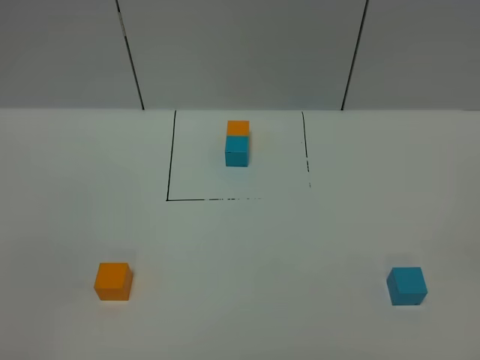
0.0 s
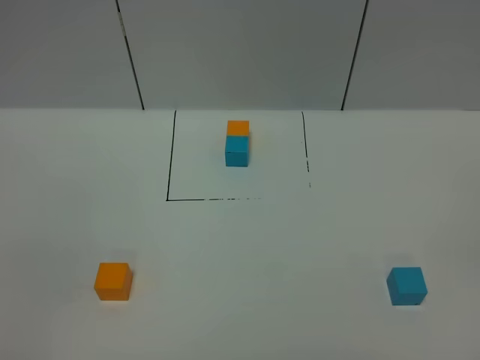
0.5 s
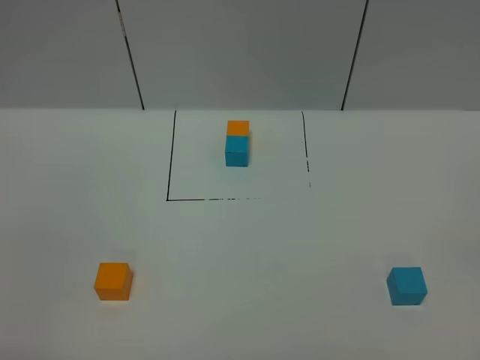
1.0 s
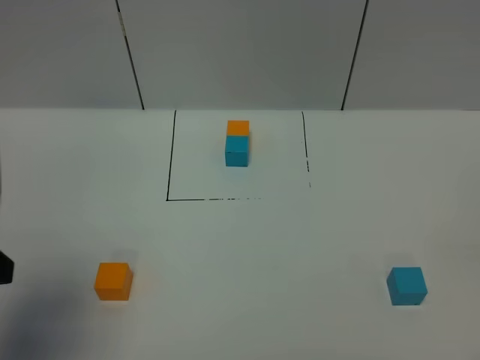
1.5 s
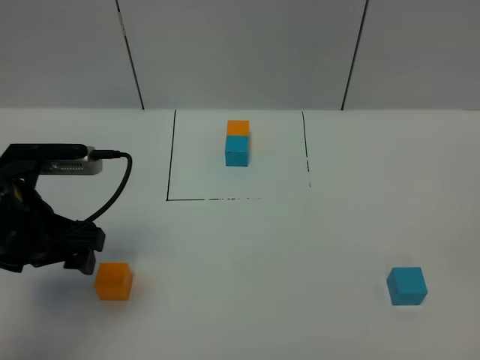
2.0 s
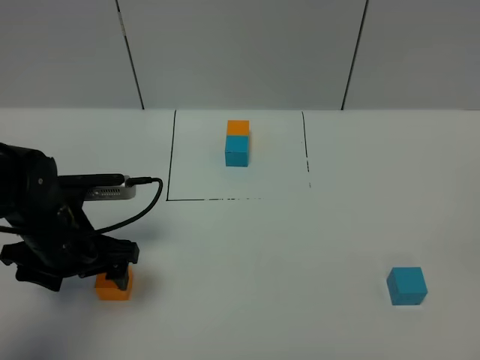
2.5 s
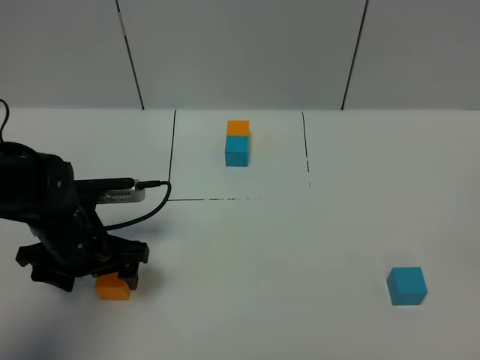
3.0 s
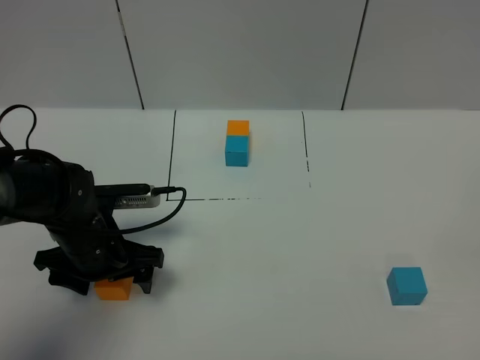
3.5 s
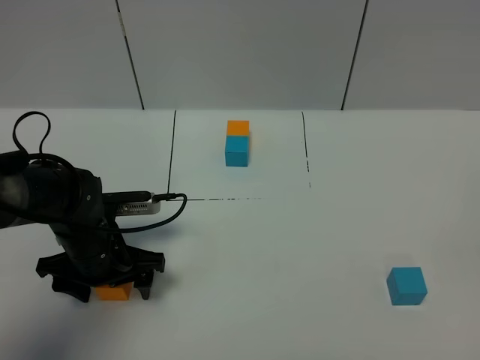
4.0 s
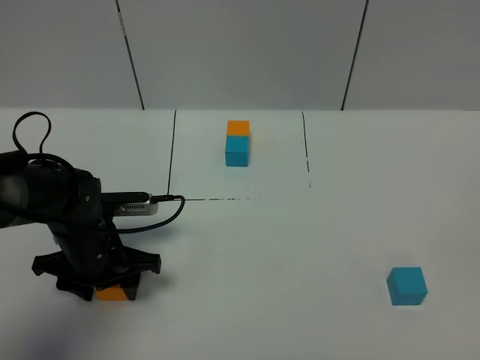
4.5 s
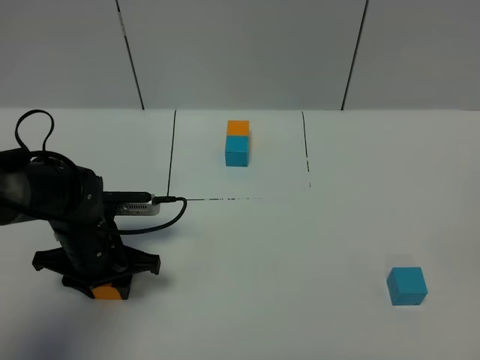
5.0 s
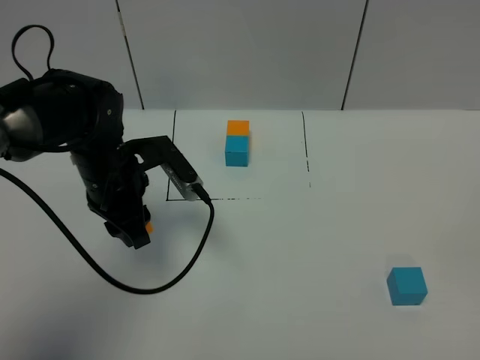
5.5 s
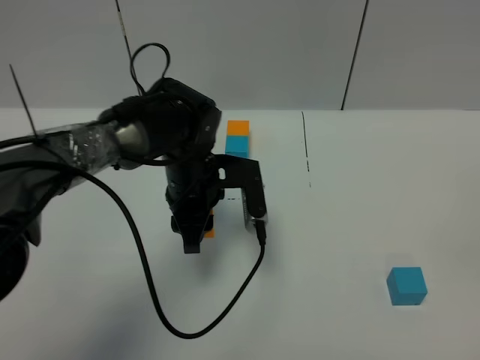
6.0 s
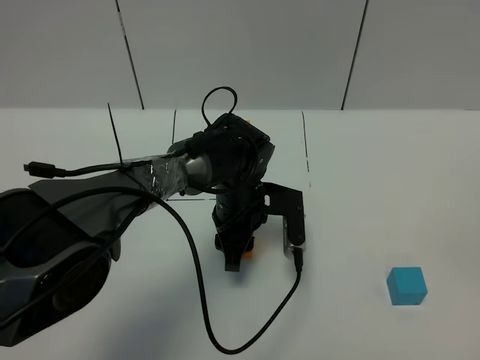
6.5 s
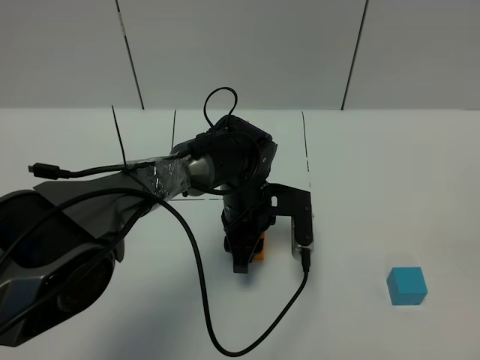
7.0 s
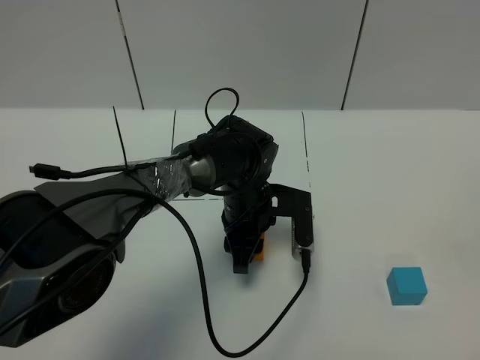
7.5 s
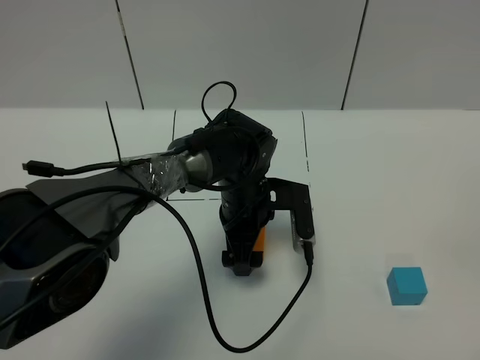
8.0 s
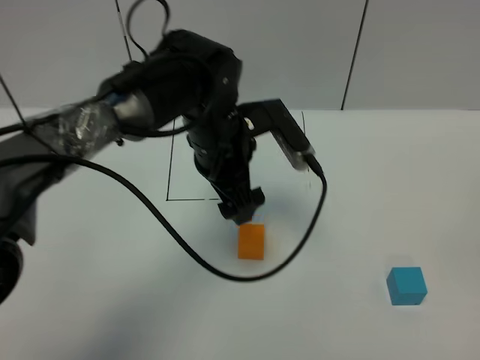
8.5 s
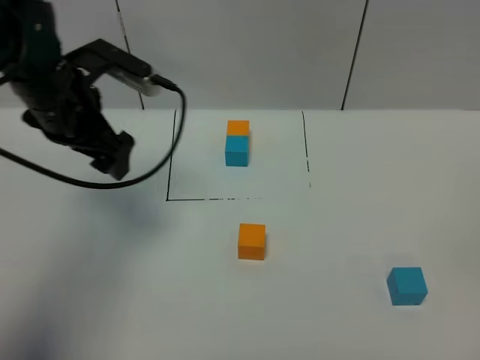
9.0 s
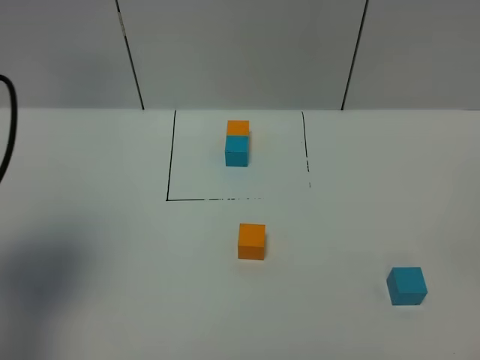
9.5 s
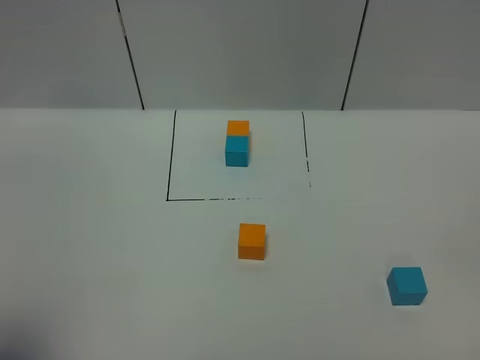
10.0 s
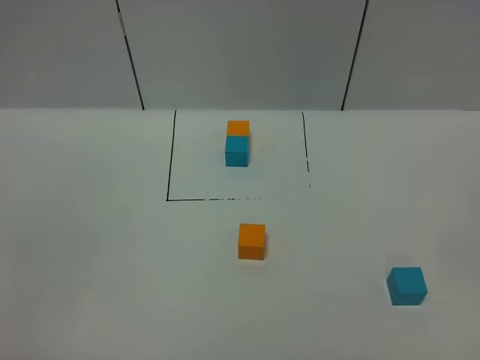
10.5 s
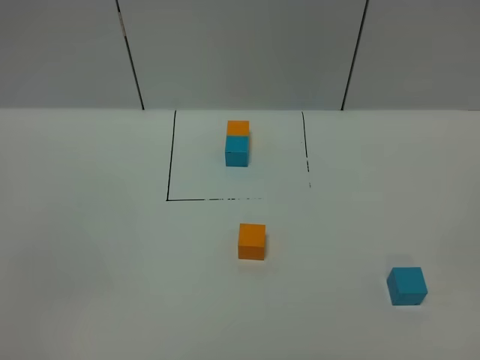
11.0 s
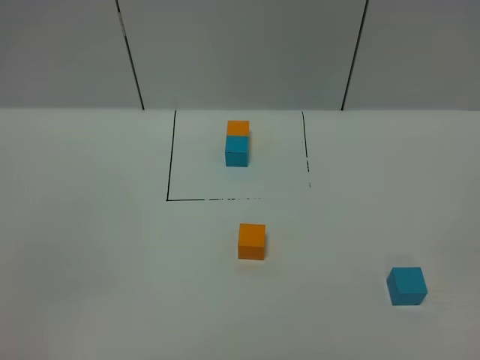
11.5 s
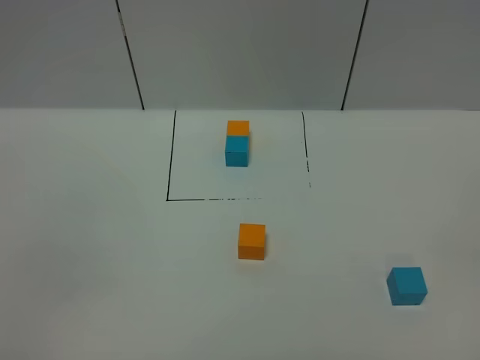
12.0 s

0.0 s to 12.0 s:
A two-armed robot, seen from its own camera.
Task of the whole recording: According to the building block template in front, assemble the scattered blocks together.
Step, 1.5 to 8.0 s: Put the orange cube in the center of the table.
0.0 to 2.0 s: The left gripper heads forward, covering roughly 25 cm.
2.0 to 4.0 s: The left gripper heads downward, covering about 15 cm.
4.0 to 6.0 s: The left gripper moves to the right, forward and upward, roughly 15 cm, and closes up.
6.0 to 8.0 s: The left gripper shifts some 5 cm to the right, and opens its fingers.
8.0 to 10.0 s: The left gripper is displaced to the left, backward and upward by about 50 cm.

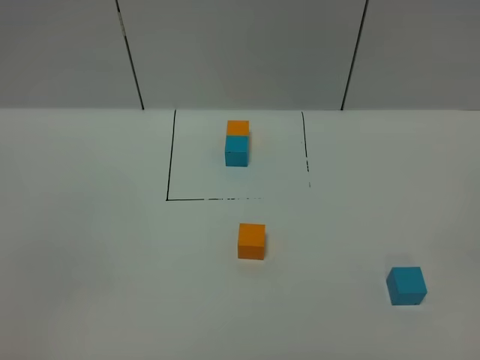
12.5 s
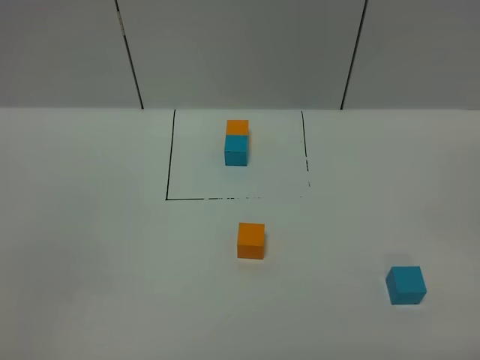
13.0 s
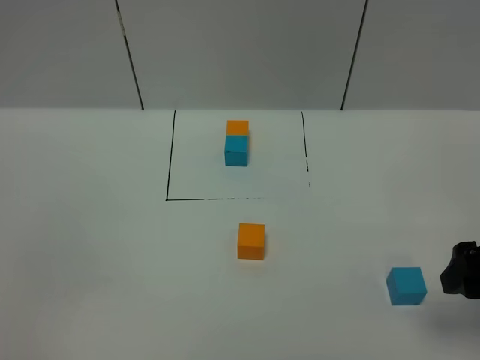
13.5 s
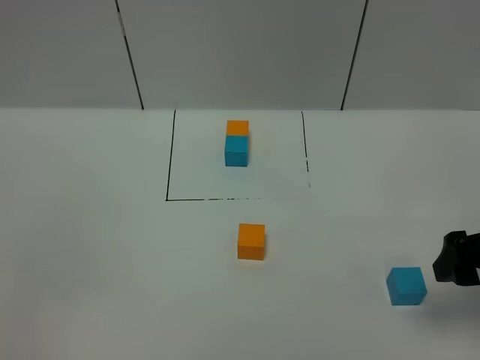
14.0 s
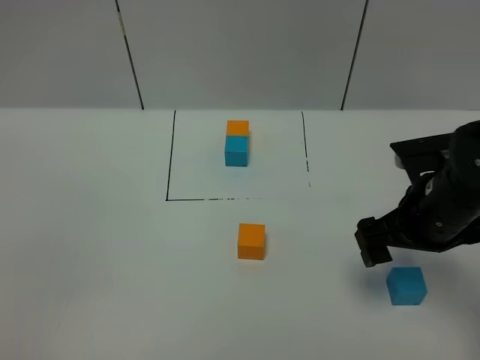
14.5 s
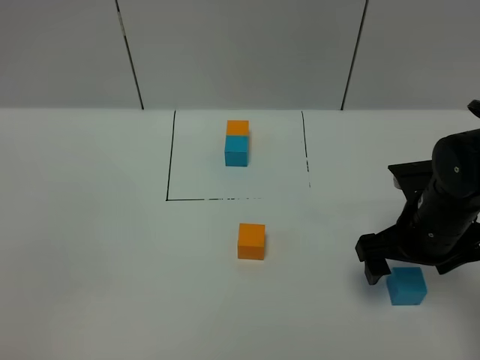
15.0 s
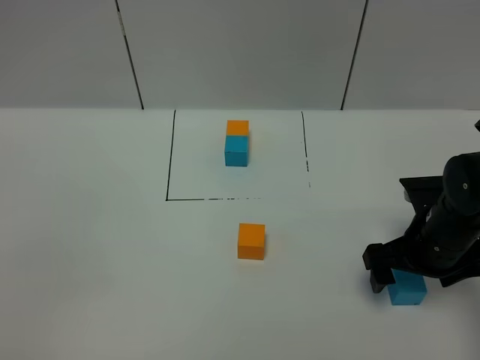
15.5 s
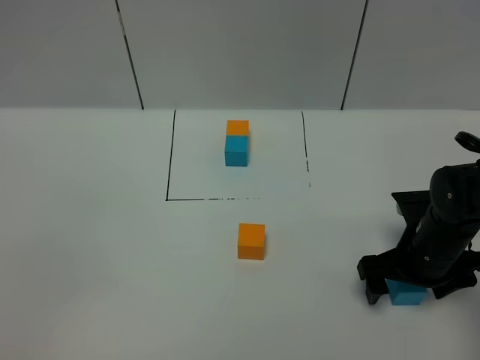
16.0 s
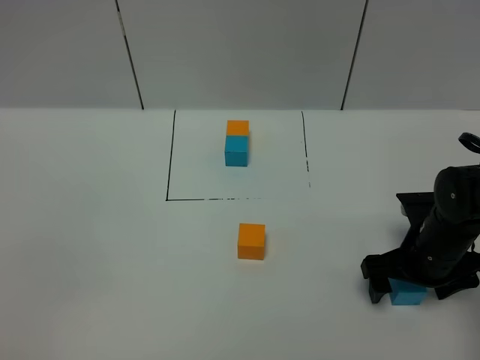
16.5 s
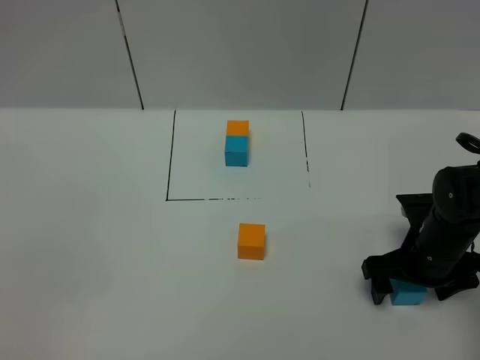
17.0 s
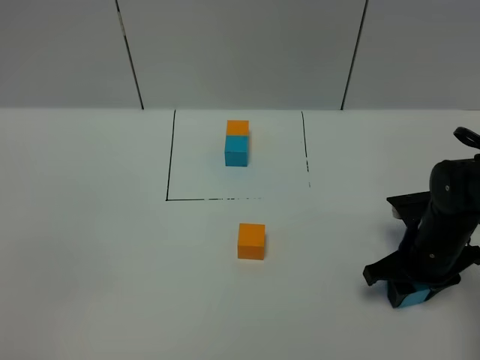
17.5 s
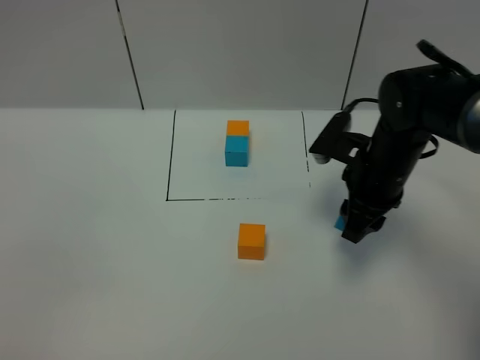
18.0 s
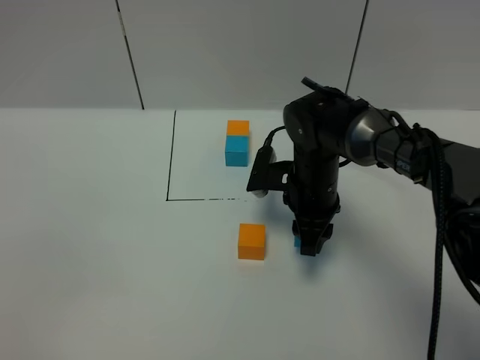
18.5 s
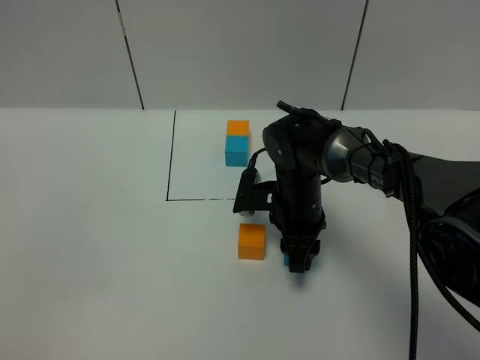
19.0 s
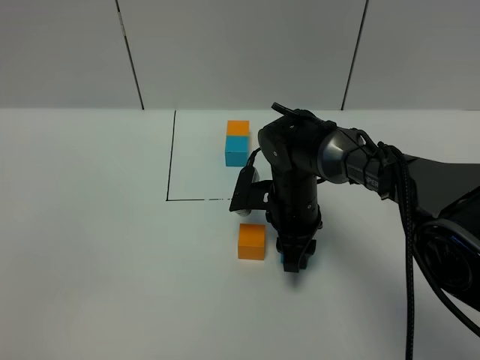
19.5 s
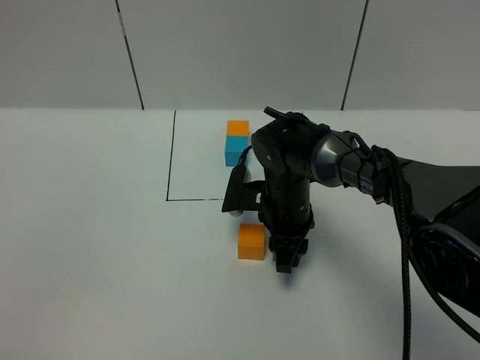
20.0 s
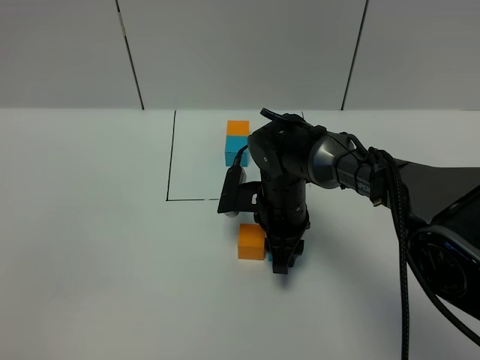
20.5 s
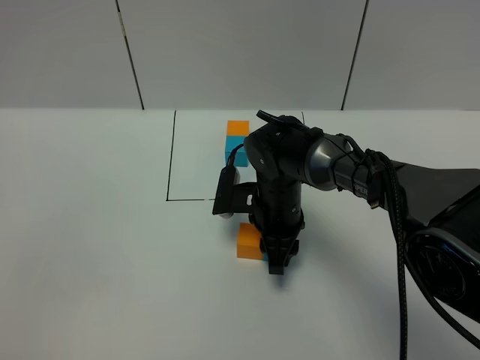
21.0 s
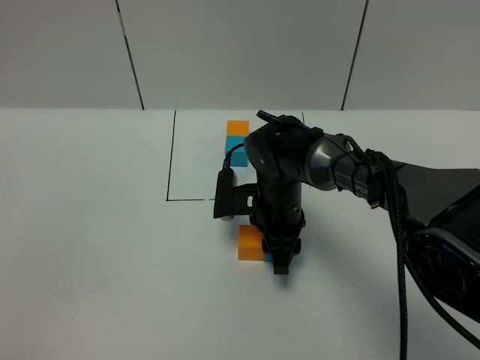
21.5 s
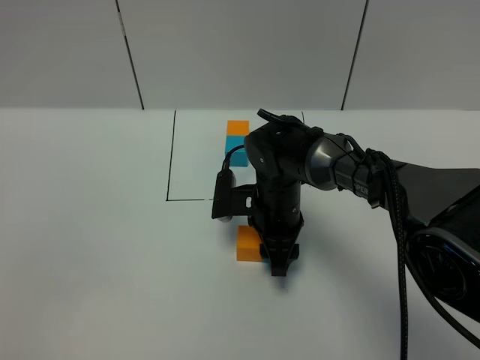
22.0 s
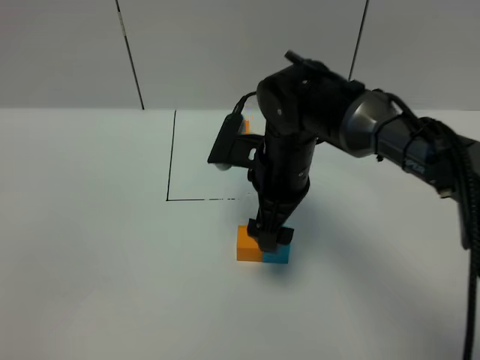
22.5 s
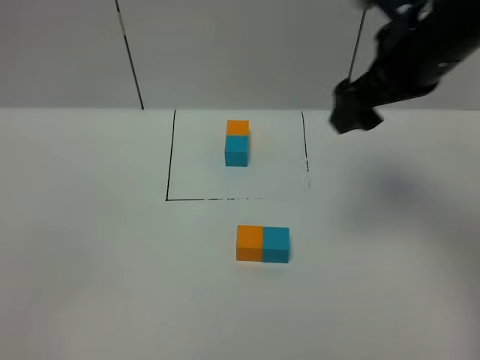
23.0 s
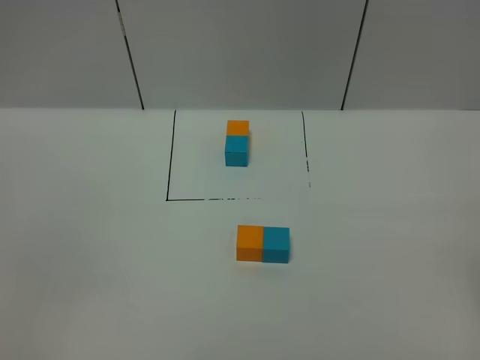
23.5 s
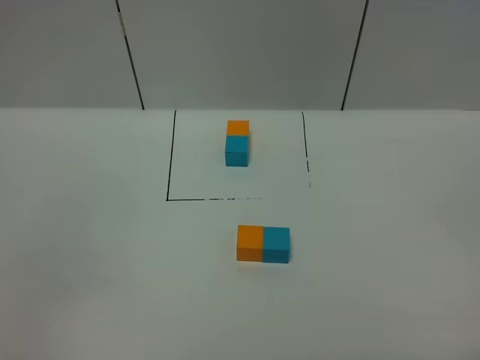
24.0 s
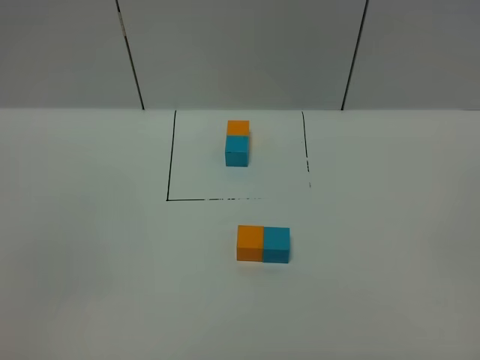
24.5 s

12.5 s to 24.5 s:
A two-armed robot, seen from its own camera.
Task of the whole recording: According to the building block template in front, assemble the scattered blocks together.
Step, 12.5 to 22.5 s: Put the blue cube on the right of the orange cube.
12.5 to 14.5 s: The right gripper heads forward, covering roughly 30 cm.
14.5 to 16.5 s: The right gripper goes some 10 cm downward.
16.5 to 18.5 s: The right gripper moves to the left and forward, some 15 cm, and closes.
18.5 to 20.5 s: There are only small adjustments of the grippers.
20.5 to 22.5 s: The right gripper heads upward, covering some 10 cm, and opens.
22.5 to 24.5 s: The right gripper goes about 40 cm backward and to the right.

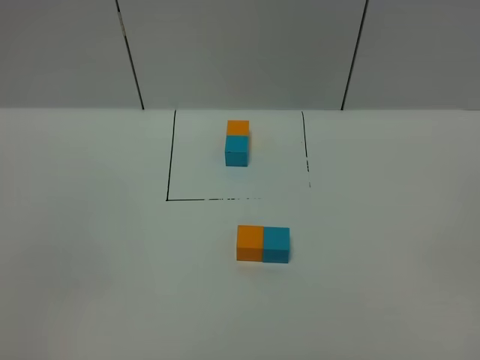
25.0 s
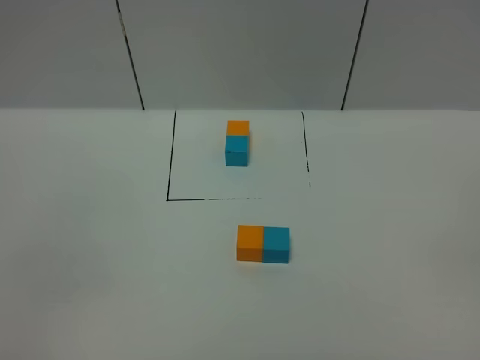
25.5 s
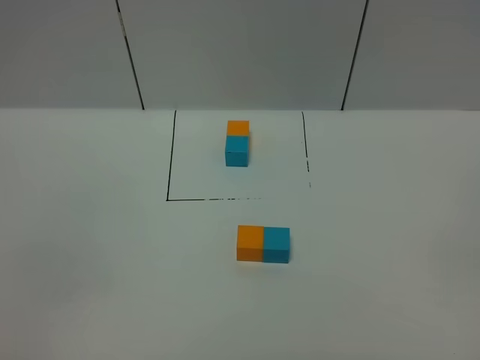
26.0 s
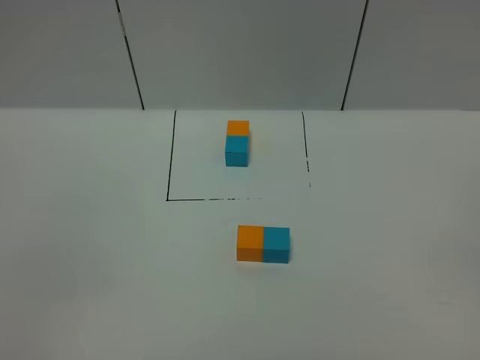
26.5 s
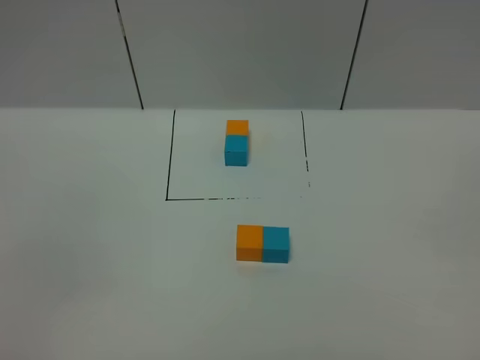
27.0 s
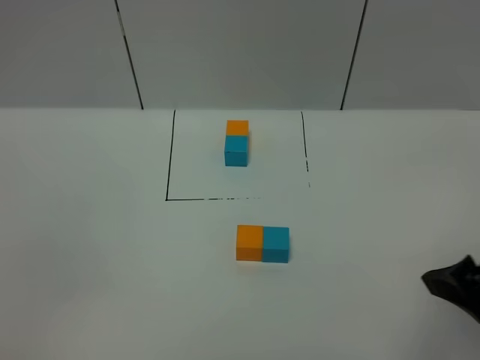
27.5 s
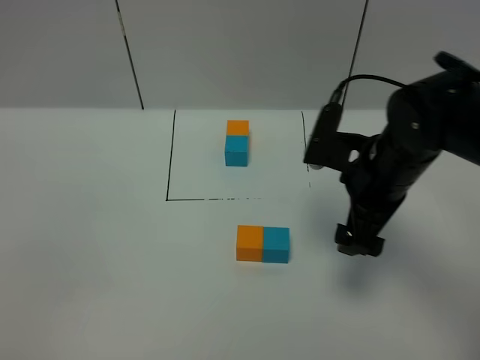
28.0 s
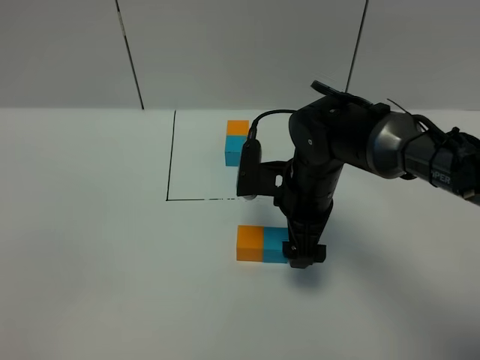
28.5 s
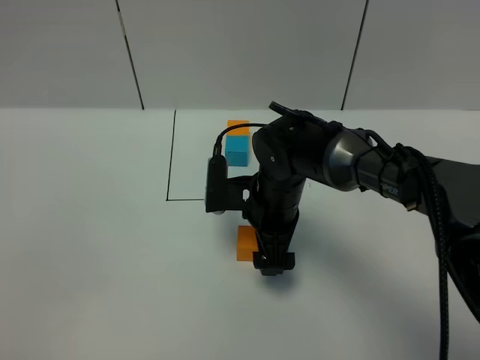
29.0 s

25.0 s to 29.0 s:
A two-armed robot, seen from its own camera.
Task of the whole recording: According to the building block template in front, assemble the scattered blocks together.
27.0 to 29.0 s: The right gripper heads forward, to the left and downward, covering some 50 cm.
